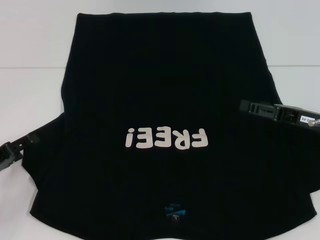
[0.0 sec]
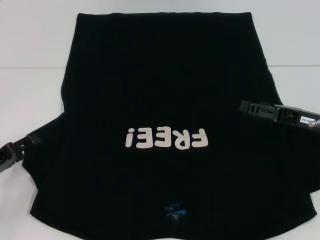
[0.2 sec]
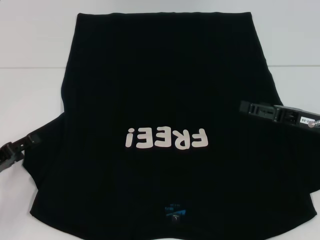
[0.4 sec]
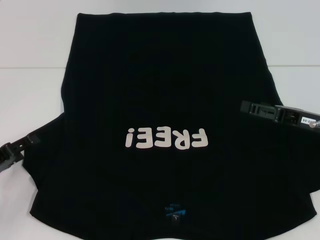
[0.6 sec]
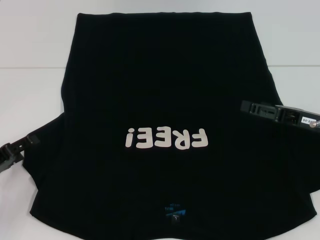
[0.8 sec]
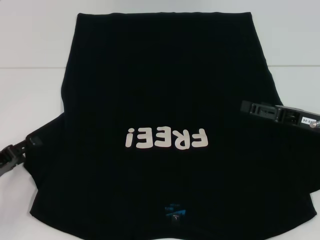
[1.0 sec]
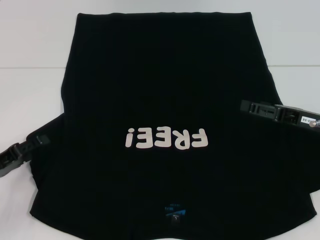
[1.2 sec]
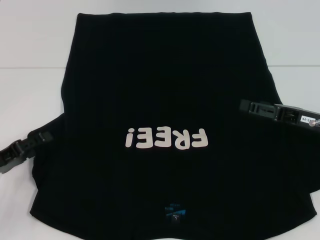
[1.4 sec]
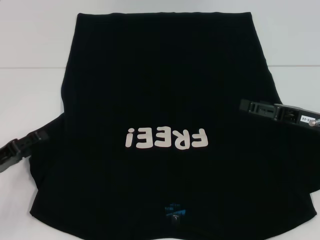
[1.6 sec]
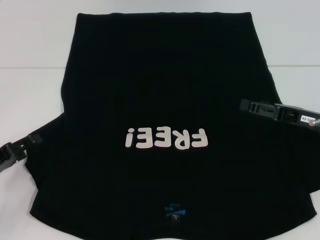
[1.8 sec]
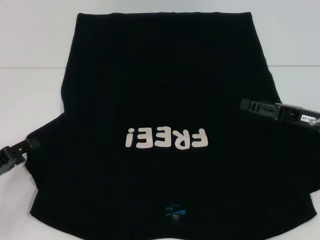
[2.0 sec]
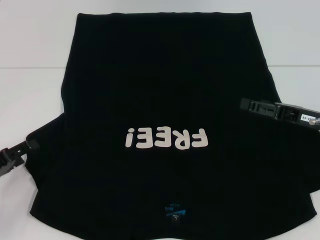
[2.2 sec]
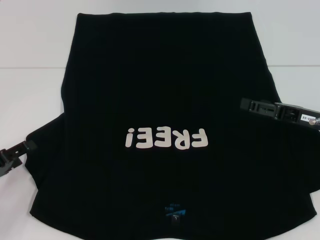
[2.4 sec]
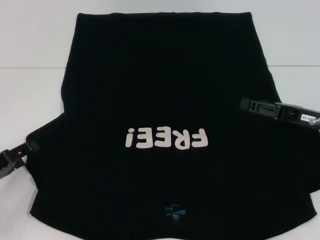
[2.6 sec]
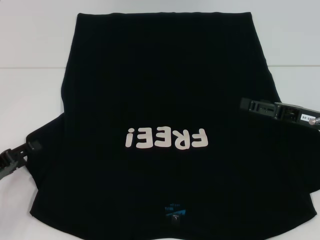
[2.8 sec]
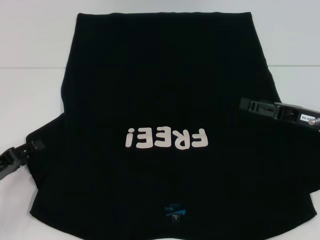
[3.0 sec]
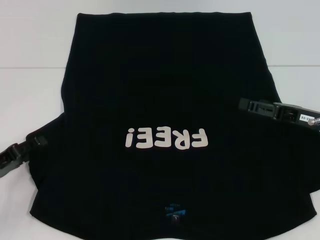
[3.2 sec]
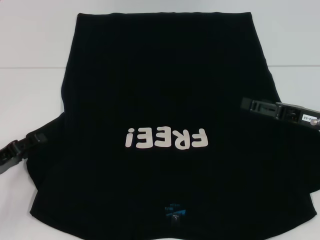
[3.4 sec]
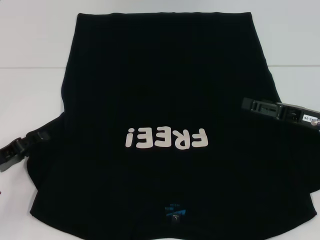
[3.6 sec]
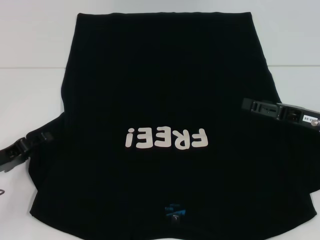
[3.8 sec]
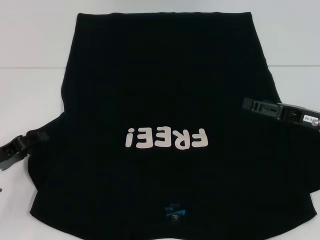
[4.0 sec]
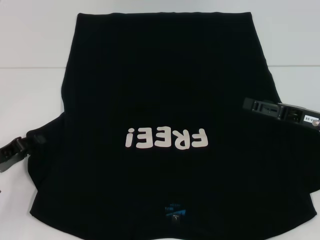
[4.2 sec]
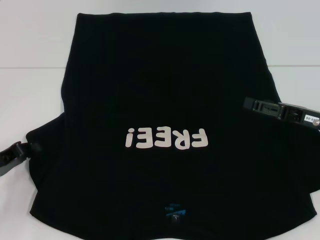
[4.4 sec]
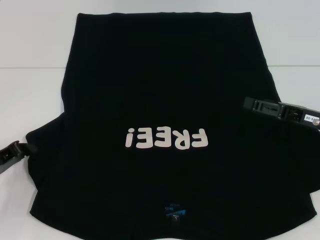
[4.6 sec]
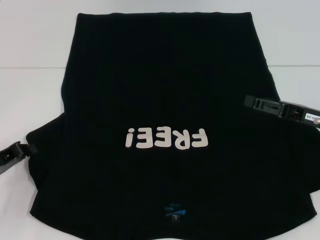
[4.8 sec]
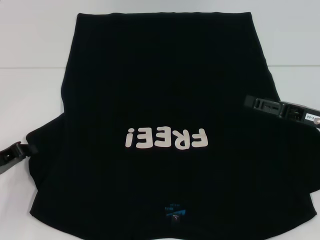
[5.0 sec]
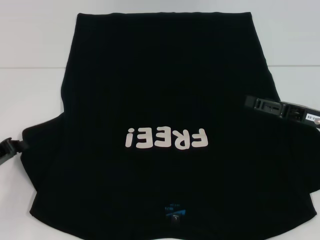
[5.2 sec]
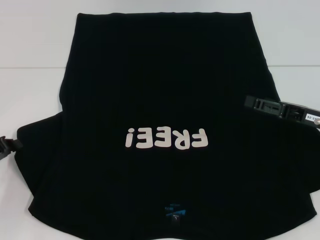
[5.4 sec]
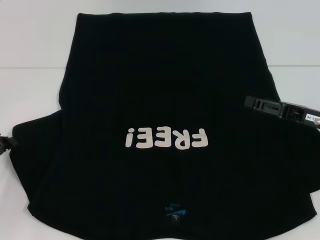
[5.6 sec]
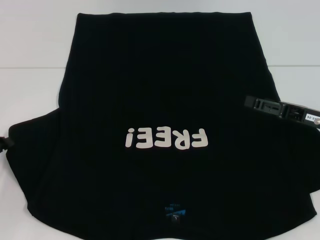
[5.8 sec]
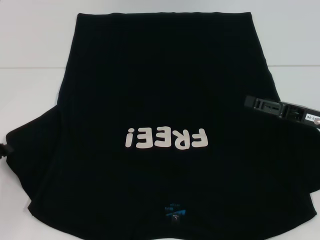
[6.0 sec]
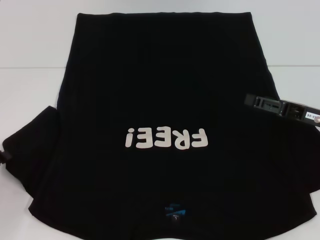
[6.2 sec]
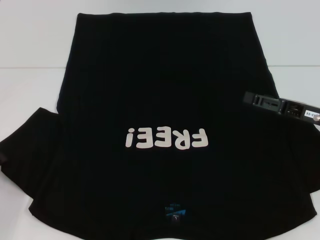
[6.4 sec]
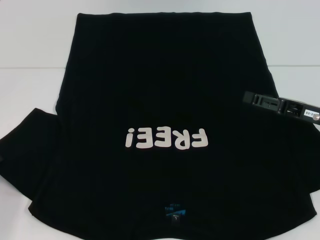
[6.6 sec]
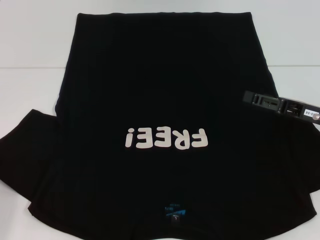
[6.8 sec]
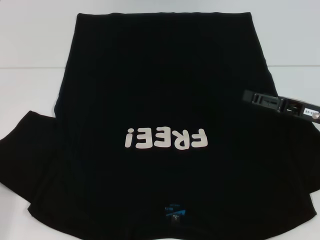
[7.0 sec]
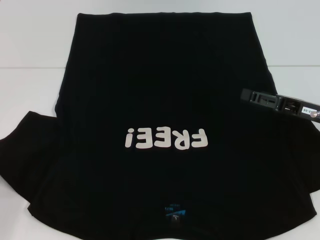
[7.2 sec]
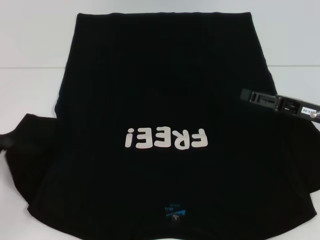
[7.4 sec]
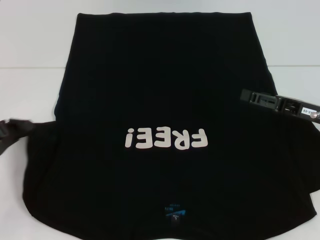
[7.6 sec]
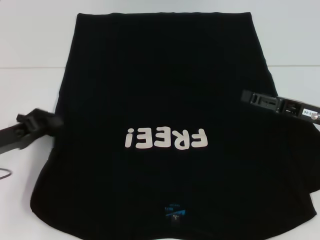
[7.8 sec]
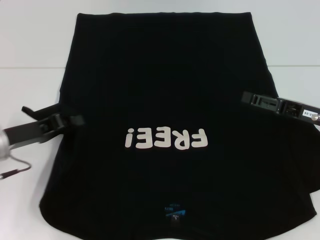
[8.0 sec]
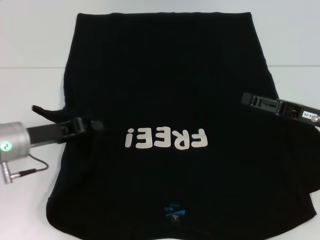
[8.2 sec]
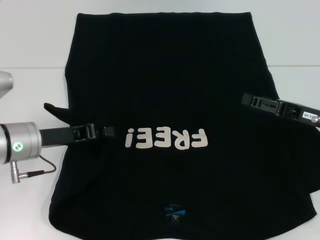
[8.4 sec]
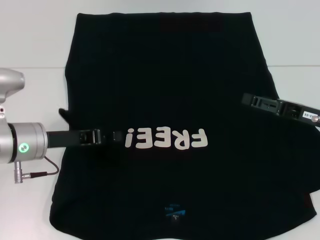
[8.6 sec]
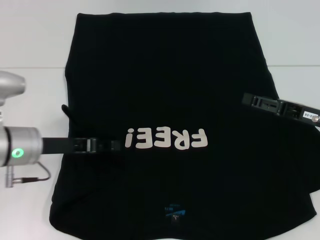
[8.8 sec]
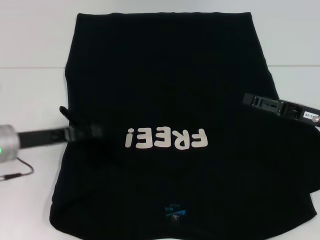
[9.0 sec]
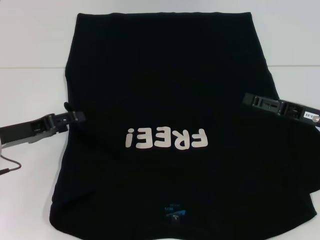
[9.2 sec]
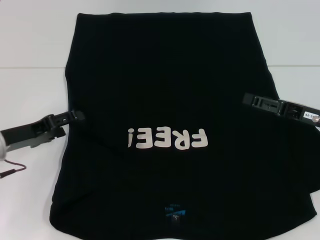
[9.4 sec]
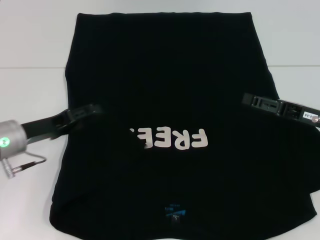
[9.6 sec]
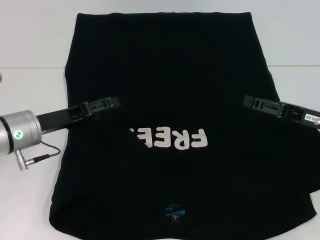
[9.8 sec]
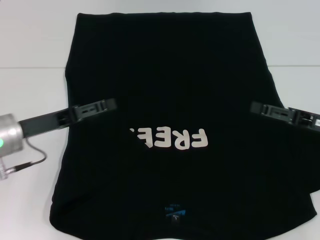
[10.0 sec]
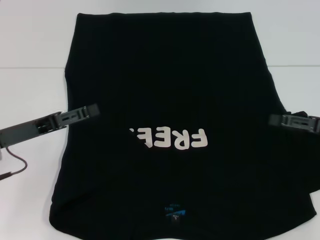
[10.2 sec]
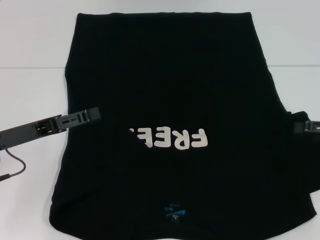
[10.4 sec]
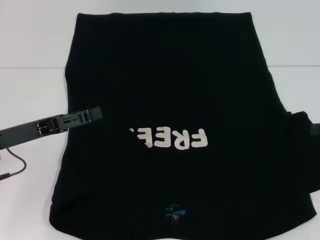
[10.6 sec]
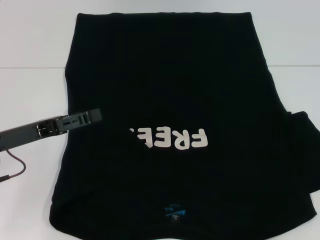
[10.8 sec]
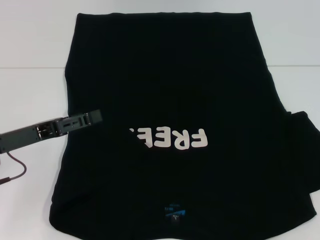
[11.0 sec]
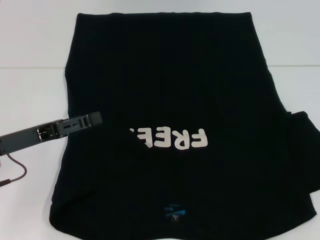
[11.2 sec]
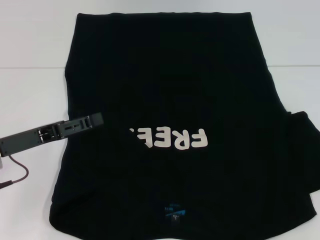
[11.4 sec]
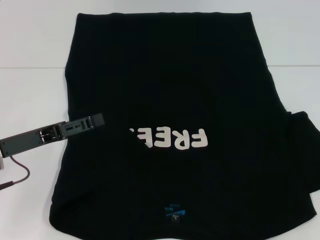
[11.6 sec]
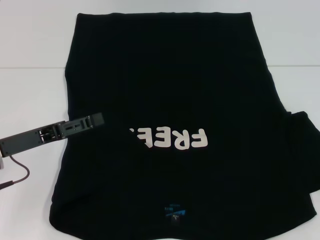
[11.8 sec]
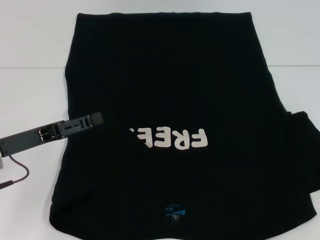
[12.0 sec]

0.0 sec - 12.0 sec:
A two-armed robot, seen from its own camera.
Step, 0.0 sec - 9.4 sec: Fold the bottom left sleeve with your left hand.
1.6 sec - 3.0 sec: The grippers move only a little.
3.0 sec - 4.4 sec: The left gripper closes its fingers.
4.4 sec - 6.0 sec: The left gripper closes its fingers.
6.0 sec - 7.6 sec: The grippers stay close to where they were, moving slightly.
7.6 sec - 9.0 sec: The left gripper shifts roughly 10 cm to the right and forward, and opens up.
9.0 sec - 10.4 sec: The right gripper moves to the right, some 5 cm. Meanwhile the left gripper opens.
10.4 sec - 12.0 sec: The grippers stay close to where they were, moving slightly.

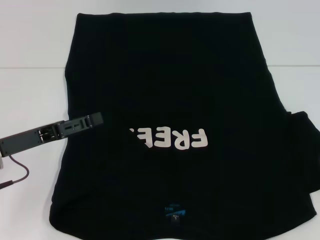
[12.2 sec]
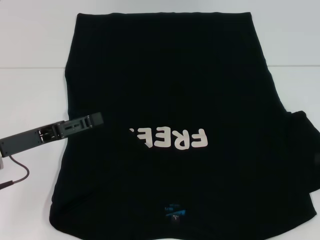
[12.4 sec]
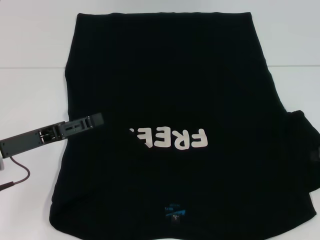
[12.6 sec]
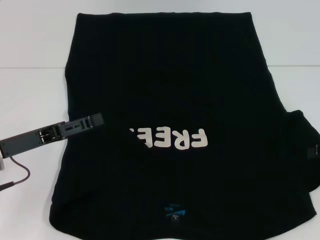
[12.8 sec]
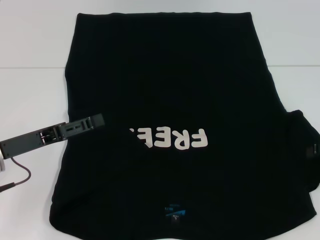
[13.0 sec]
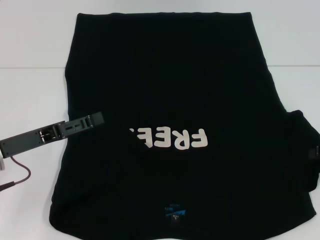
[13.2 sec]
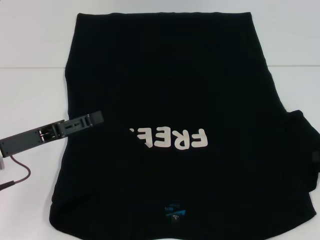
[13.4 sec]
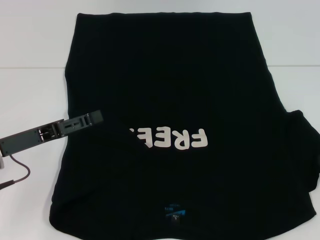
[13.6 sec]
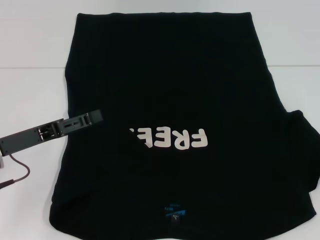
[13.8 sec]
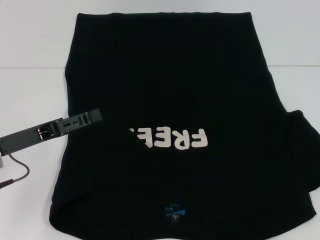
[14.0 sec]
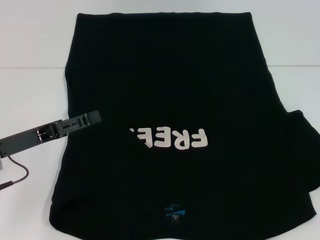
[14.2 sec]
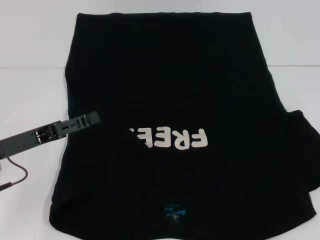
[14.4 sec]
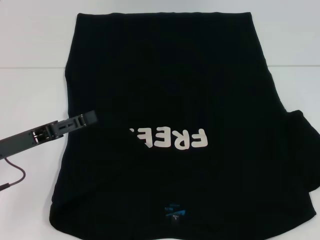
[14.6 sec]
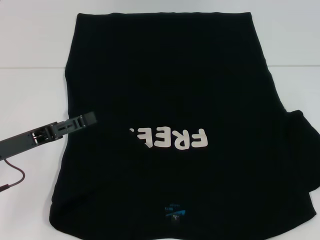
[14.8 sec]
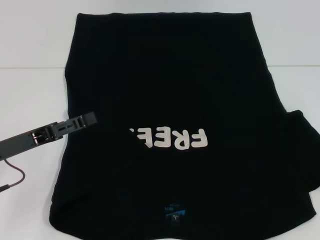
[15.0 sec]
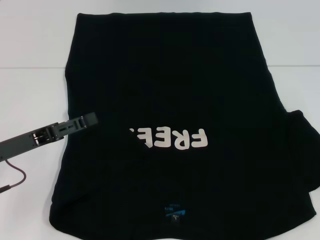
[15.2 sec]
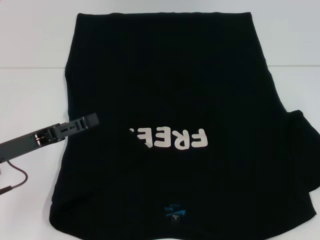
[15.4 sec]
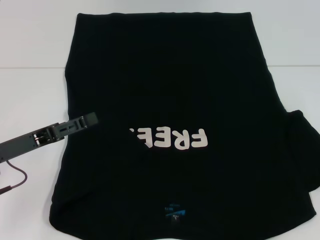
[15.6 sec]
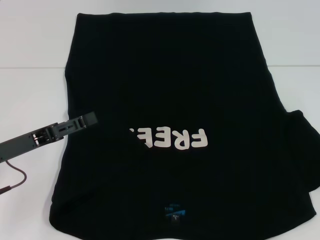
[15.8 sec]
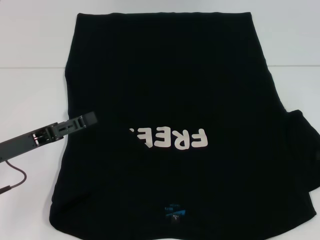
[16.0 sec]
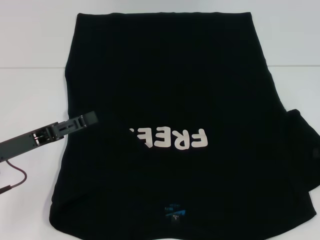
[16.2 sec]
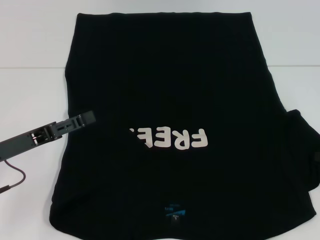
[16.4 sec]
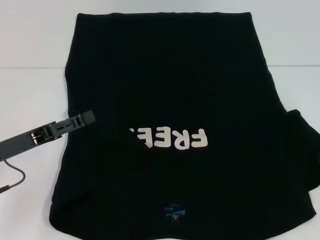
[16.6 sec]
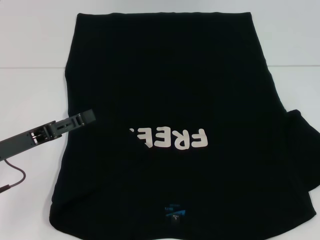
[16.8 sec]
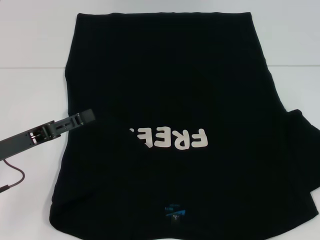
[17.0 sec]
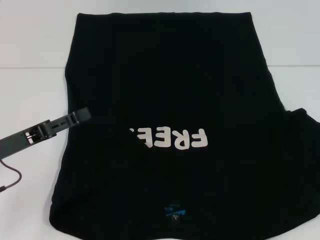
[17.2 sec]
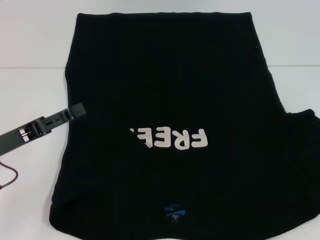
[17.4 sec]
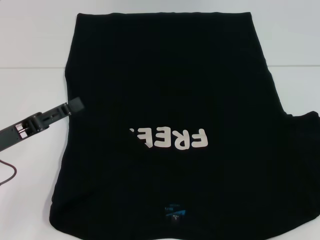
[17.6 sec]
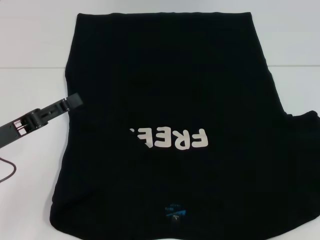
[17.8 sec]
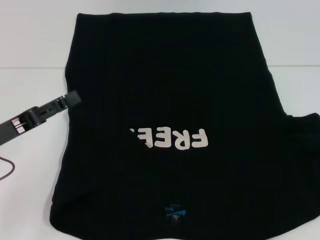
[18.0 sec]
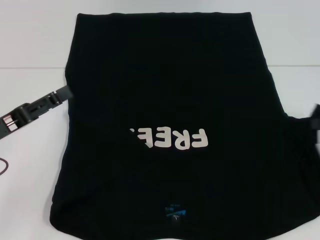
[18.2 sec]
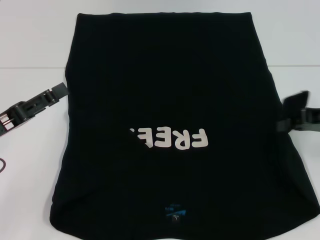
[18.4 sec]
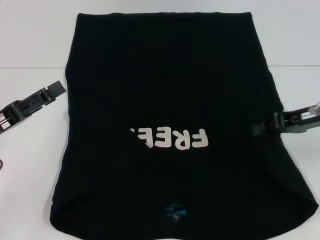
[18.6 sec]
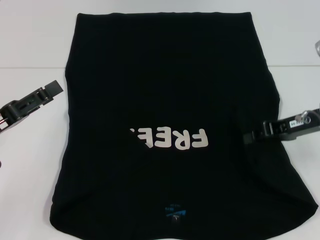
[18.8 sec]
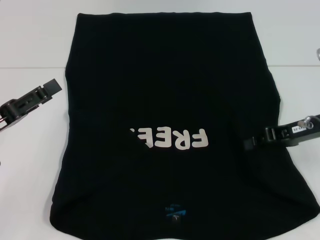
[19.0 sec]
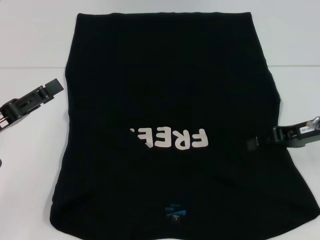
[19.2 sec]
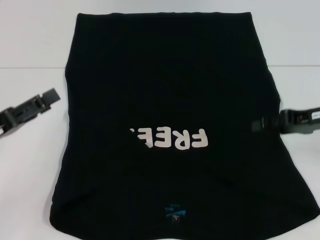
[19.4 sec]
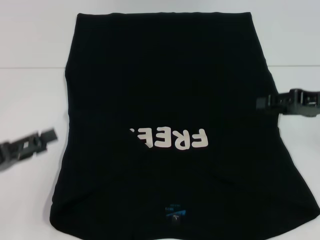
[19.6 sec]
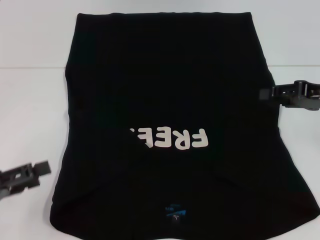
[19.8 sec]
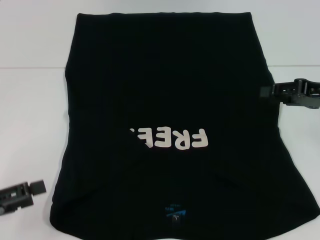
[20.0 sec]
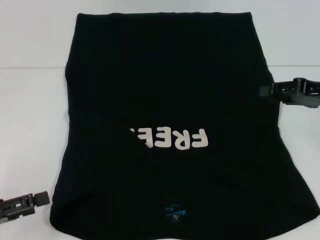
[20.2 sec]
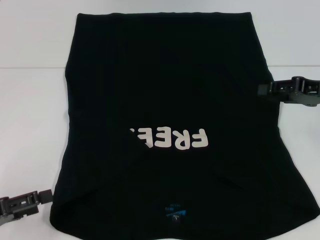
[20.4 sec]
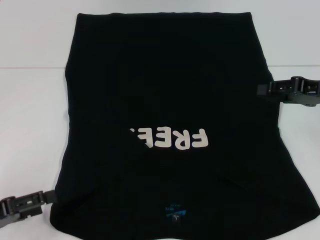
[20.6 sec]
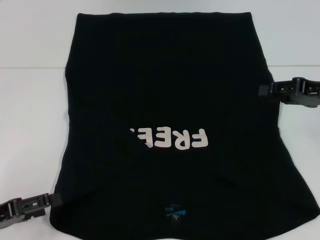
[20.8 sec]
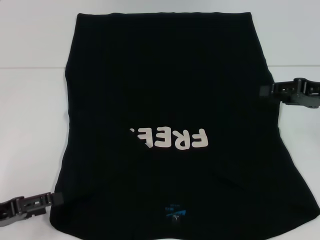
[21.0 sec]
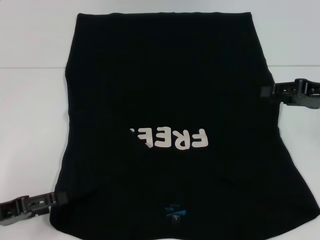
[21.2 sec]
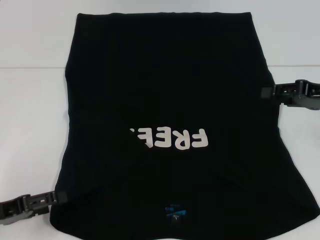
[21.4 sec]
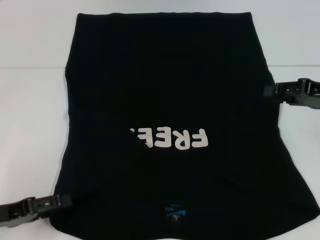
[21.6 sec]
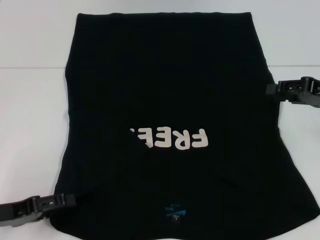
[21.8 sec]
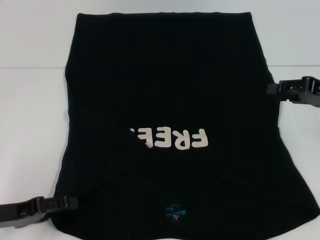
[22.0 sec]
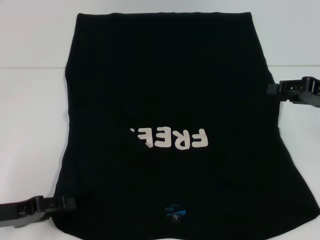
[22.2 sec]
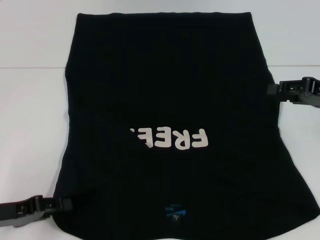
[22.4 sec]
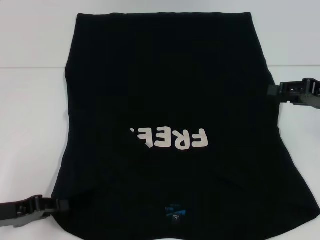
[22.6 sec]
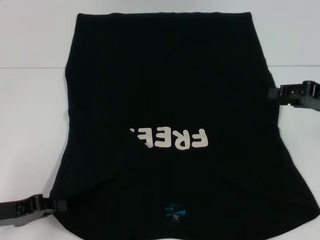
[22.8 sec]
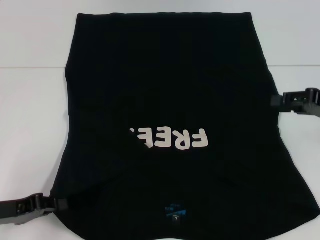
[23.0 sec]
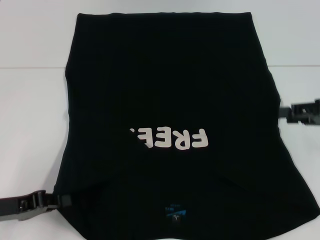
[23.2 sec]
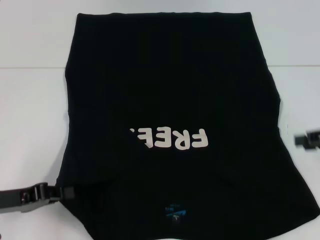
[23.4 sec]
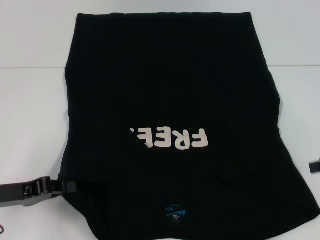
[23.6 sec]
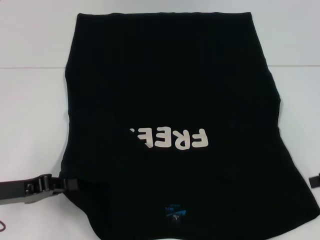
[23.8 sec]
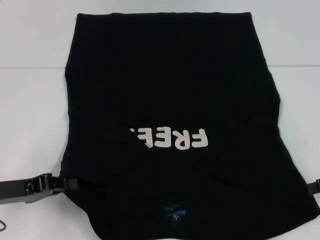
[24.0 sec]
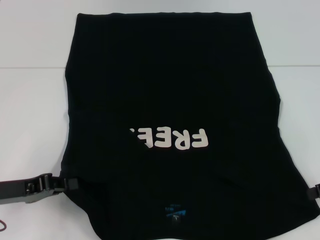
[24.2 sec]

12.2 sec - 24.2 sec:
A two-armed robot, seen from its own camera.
Step, 12.2 sec - 19.2 sec: Fold the bottom right sleeve with your right hand.
Step, 19.4 sec - 23.2 sec: Grab the bottom left corner with your left hand.
15.2 sec - 16.6 sec: The grippers move only a little.
16.6 sec - 18.2 sec: The right gripper shifts some 5 cm upward.
18.2 sec - 19.8 sec: The left gripper heads backward, covering approximately 5 cm; the right gripper opens up.
19.8 sec - 21.2 sec: There are only small adjustments of the grippers.
21.2 sec - 22.6 sec: The left gripper closes.
22.6 sec - 24.2 sec: The right gripper is displaced backward by some 5 cm. Meanwhile the left gripper closes.
